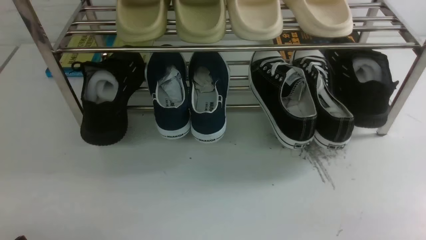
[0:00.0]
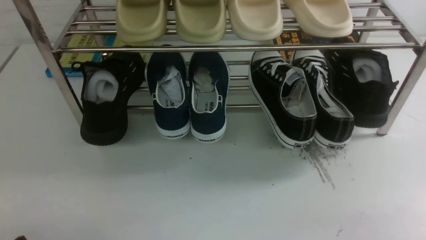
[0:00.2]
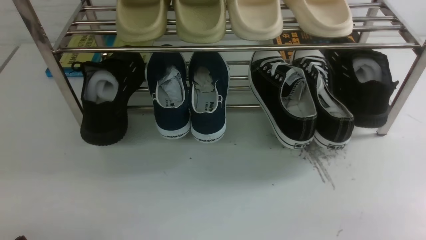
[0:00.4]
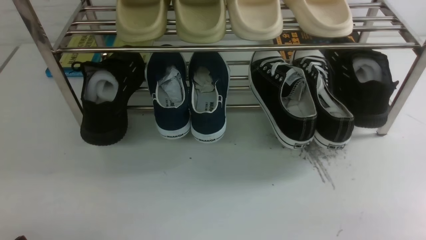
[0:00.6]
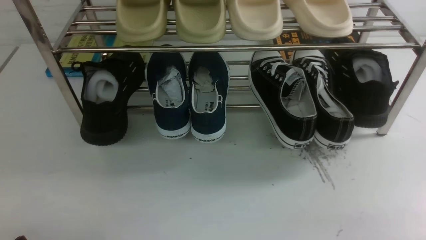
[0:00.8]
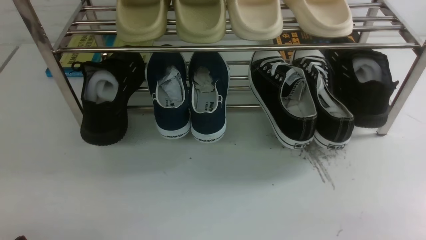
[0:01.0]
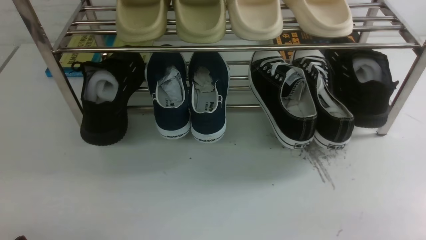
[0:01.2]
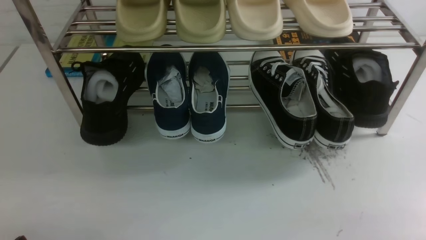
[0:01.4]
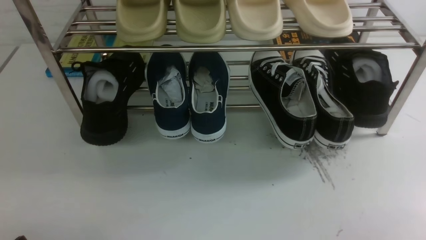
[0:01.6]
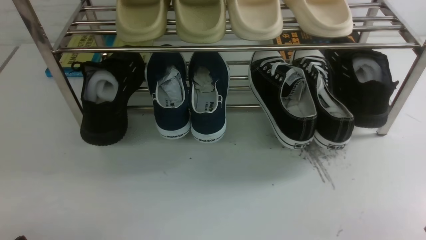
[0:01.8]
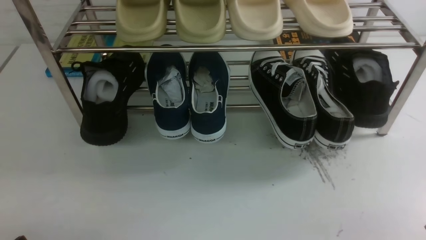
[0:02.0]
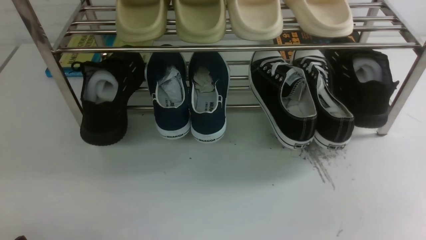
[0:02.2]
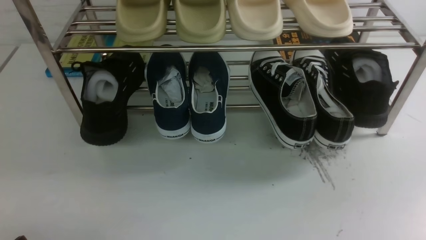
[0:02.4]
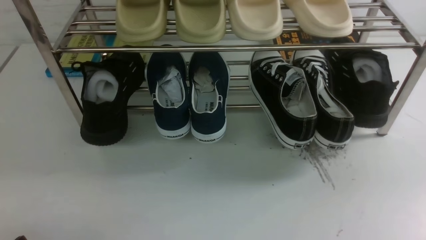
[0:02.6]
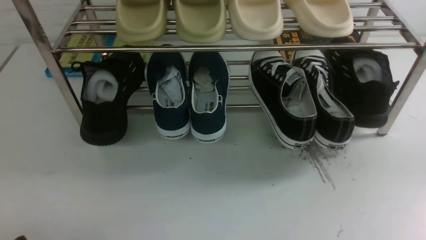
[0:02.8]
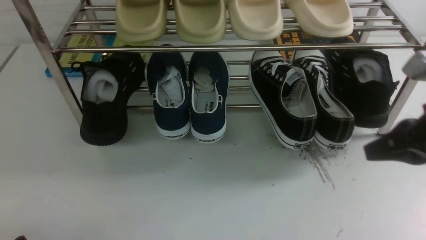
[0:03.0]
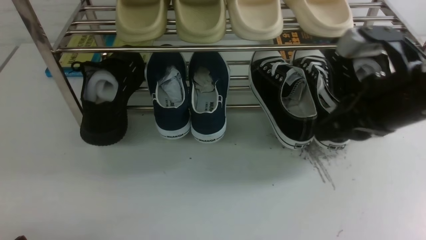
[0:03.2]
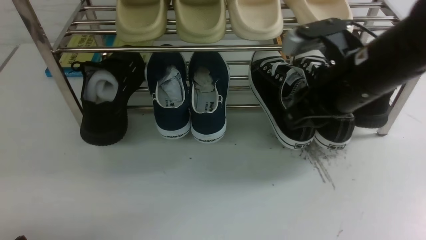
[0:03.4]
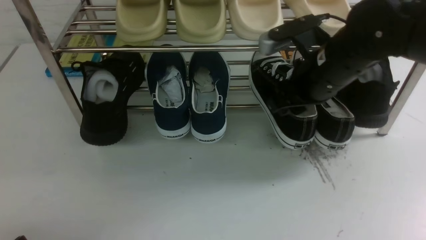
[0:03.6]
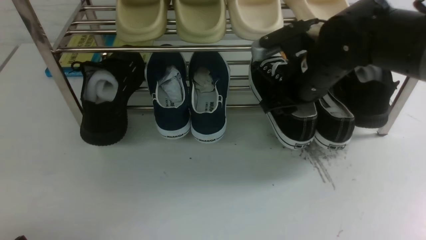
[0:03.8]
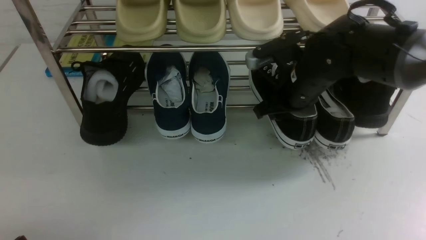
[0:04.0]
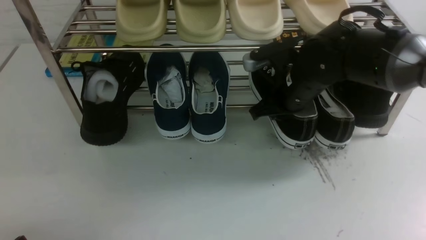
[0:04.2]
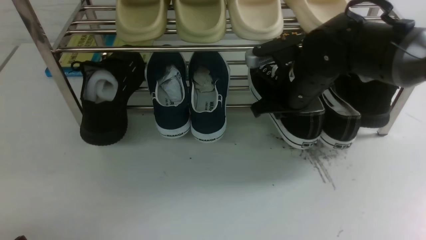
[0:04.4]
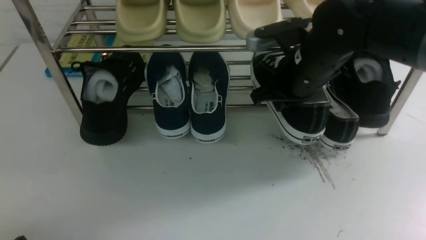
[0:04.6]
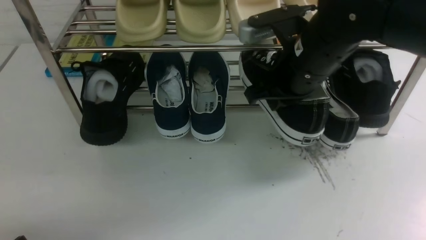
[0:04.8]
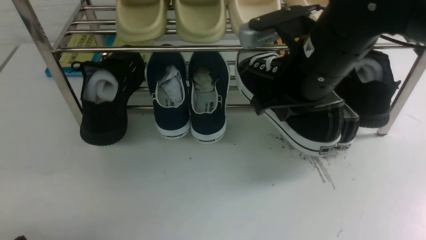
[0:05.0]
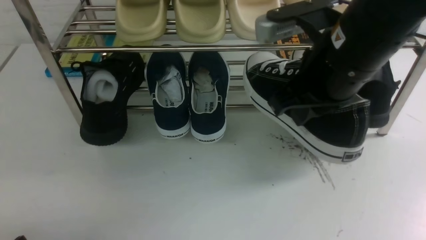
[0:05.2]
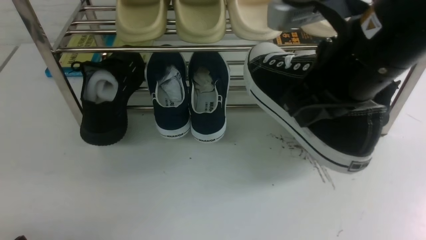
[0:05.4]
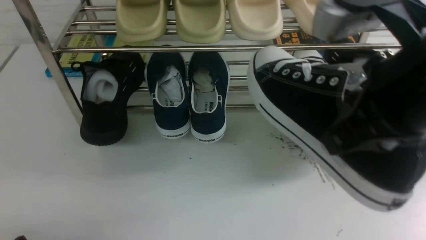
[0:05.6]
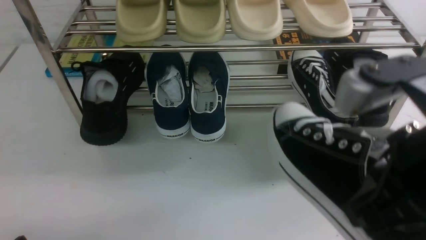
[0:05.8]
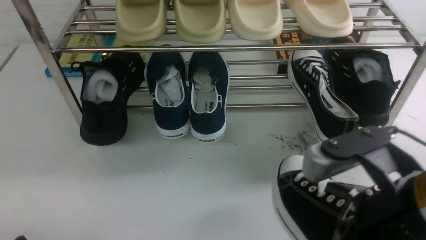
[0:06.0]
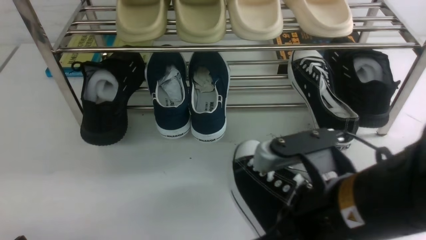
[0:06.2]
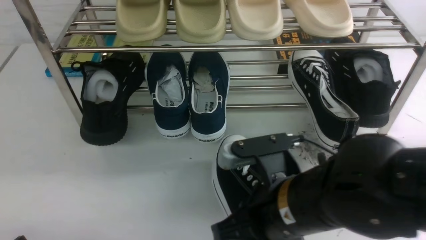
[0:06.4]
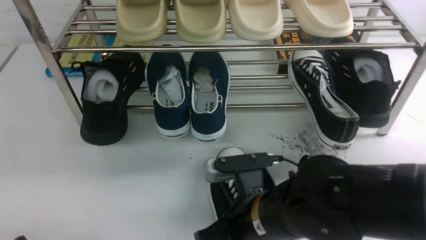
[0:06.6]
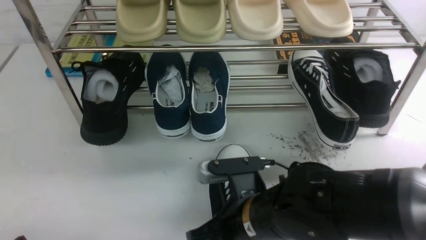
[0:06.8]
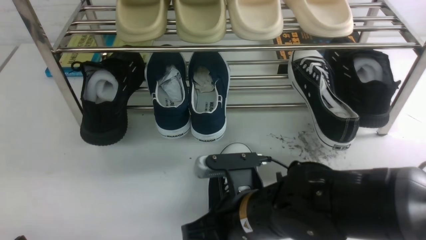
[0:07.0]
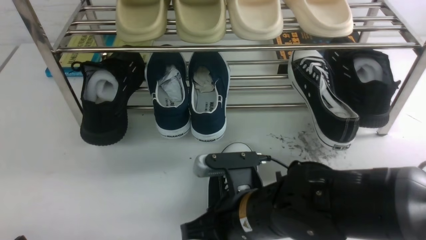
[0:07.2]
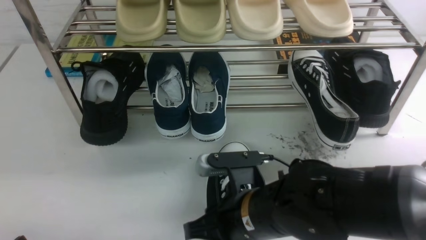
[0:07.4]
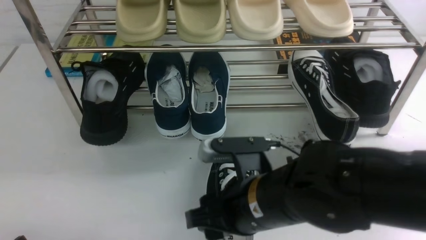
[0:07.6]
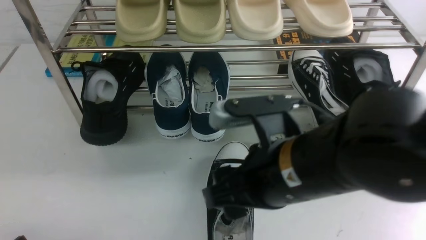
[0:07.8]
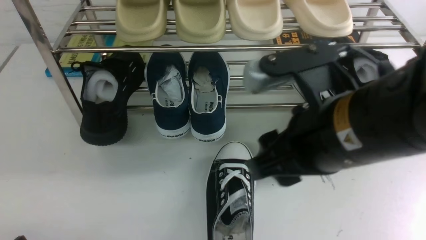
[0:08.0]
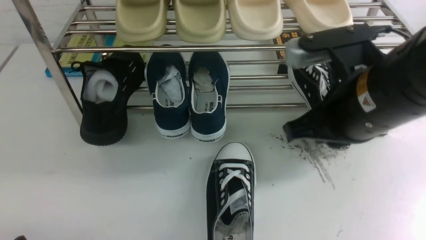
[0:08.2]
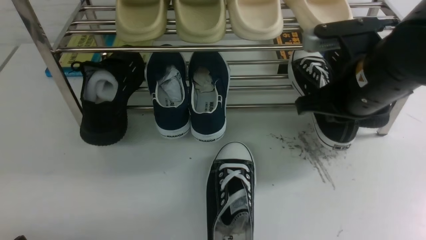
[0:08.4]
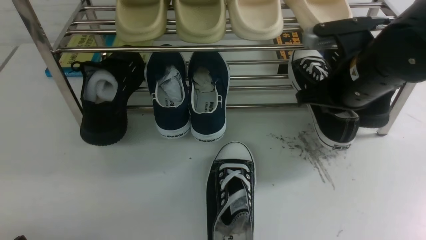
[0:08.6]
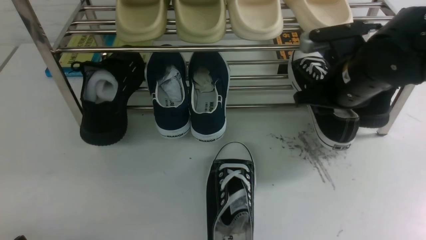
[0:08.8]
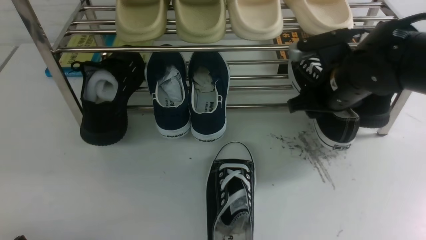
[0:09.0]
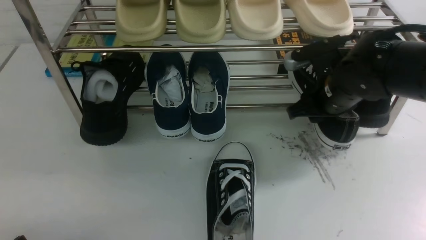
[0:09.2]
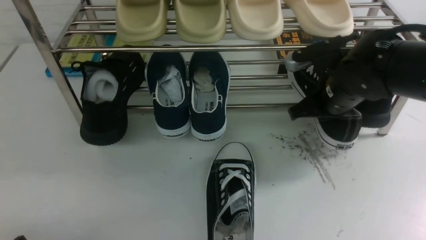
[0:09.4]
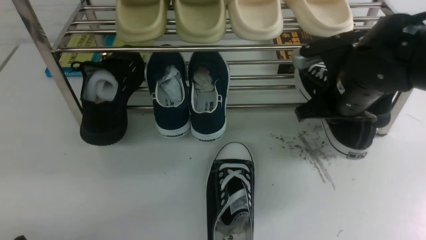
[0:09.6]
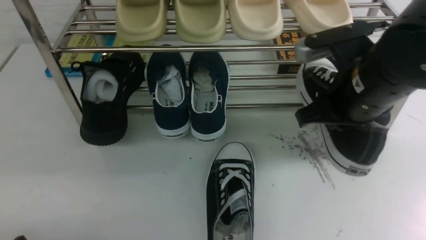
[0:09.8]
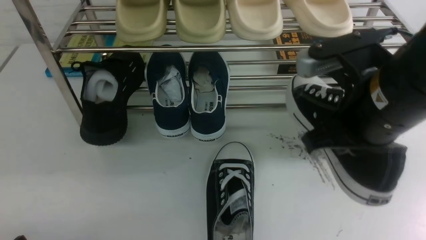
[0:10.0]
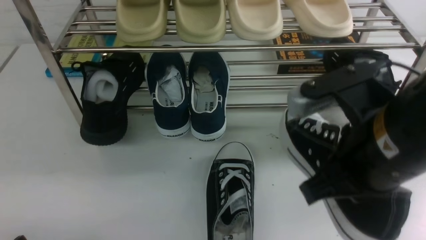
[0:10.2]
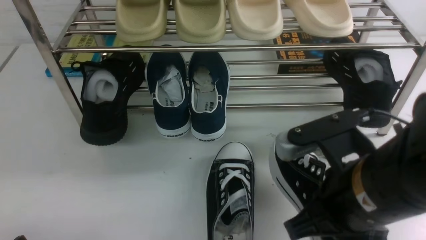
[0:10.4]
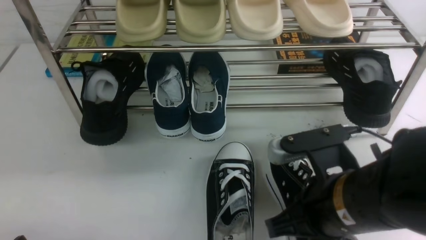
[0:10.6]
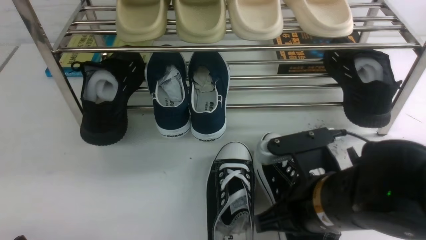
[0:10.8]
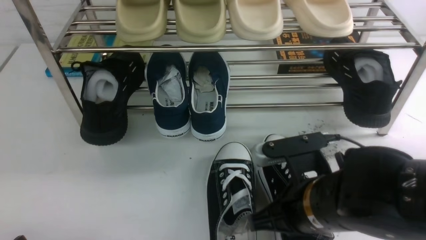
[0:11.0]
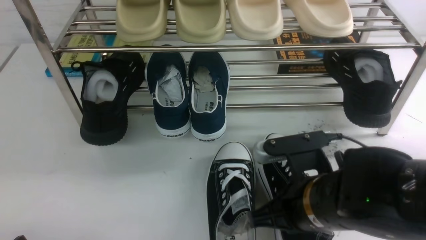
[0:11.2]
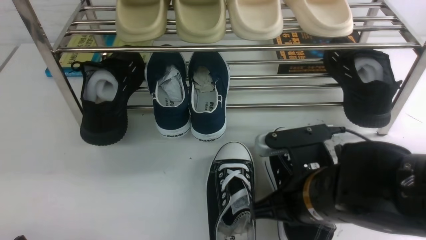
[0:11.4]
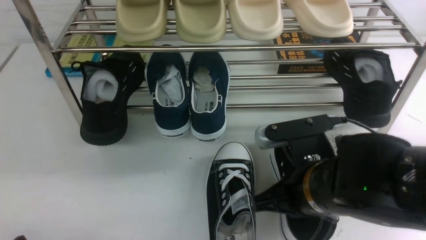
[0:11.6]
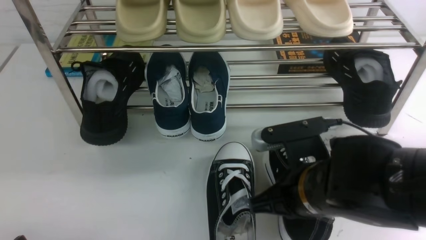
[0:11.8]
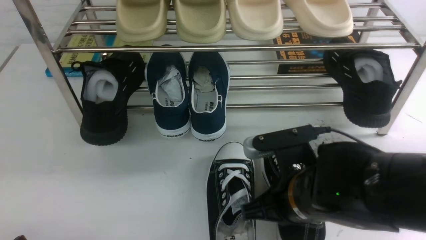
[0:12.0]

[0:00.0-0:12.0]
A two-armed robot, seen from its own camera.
Step, 0:00.0 to 0:04.6: use the right arm to clamp a shoe on the right side of the shoe rack.
Step, 0:04.8 to 0:07.6: use the right arm to take out the clamped shoe from the shoe rack and put it down.
Step, 0:07.8 to 0:09.6: use the right arm to clamp a shoe on the right side of the shoe rack.
0:01.6 to 0:03.0: The right gripper moves forward and upward, approximately 20 cm, and closes up.
0:03.0 to 0:04.4: The right gripper travels forward and to the left by approximately 20 cm, and opens and closes again.
0:04.4 to 0:06.0: The right gripper shifts approximately 25 cm backward.
0:06.0 to 0:07.6: The right gripper goes roughly 15 cm to the left, downward and forward, and opens its fingers.
0:07.6 to 0:09.0: The right gripper moves forward and to the right, approximately 20 cm, and closes, then opens again.
0:09.0 to 0:10.4: The right gripper is displaced backward by about 20 cm, and closes.
0:10.4 to 0:12.0: The right gripper is displaced downward by roughly 5 cm.

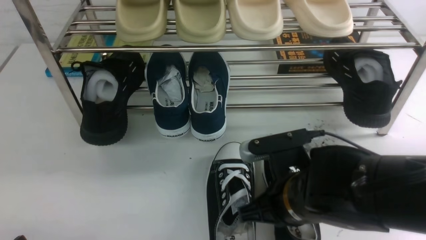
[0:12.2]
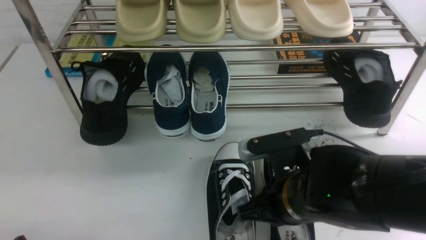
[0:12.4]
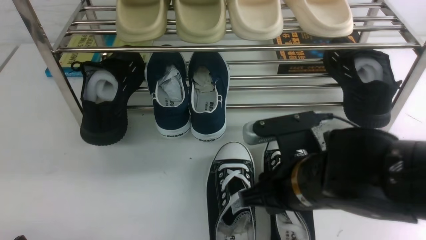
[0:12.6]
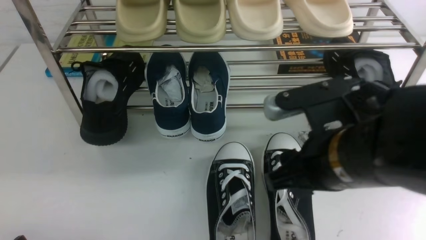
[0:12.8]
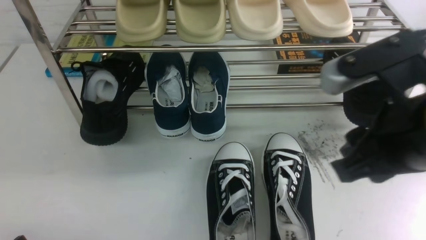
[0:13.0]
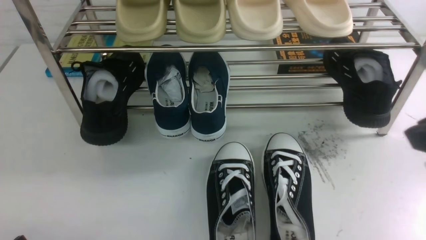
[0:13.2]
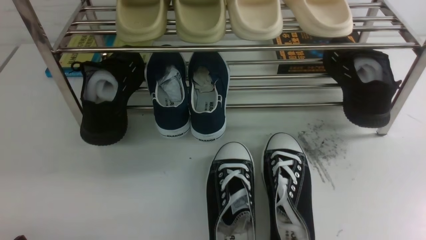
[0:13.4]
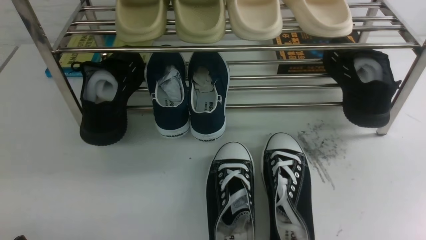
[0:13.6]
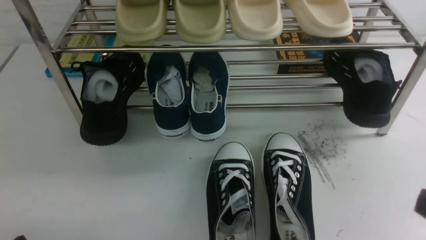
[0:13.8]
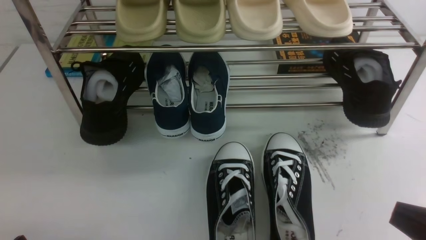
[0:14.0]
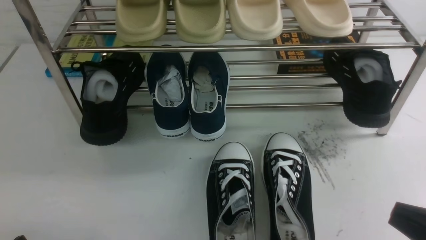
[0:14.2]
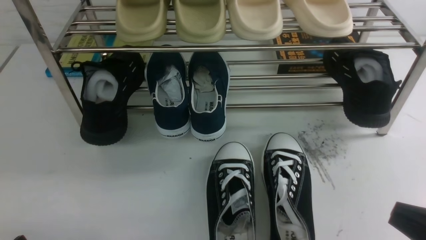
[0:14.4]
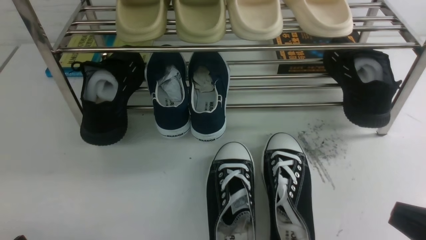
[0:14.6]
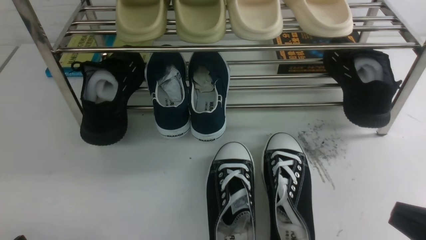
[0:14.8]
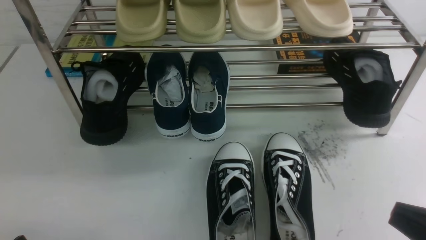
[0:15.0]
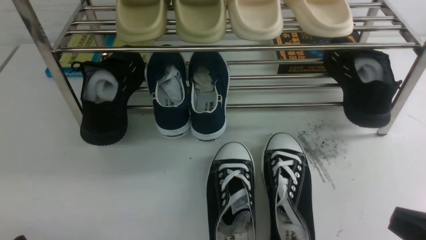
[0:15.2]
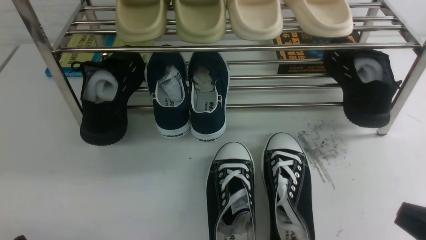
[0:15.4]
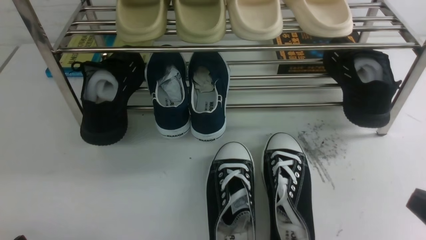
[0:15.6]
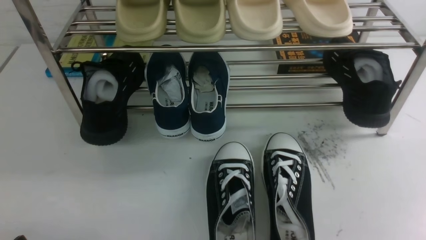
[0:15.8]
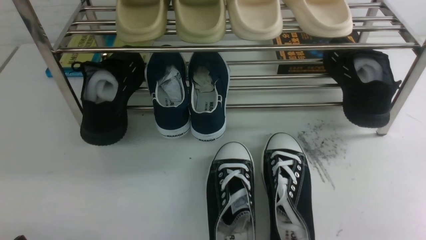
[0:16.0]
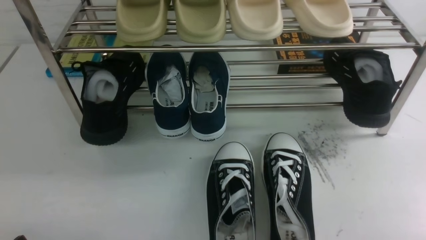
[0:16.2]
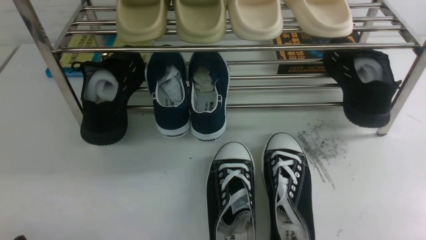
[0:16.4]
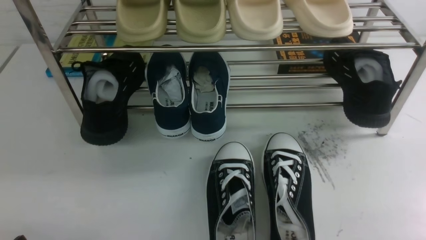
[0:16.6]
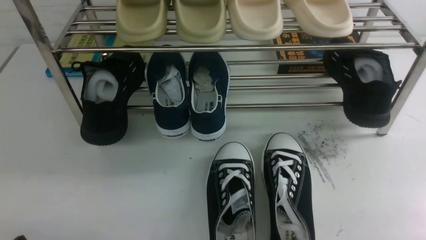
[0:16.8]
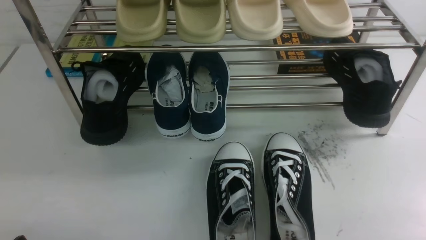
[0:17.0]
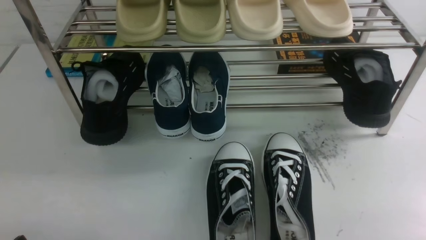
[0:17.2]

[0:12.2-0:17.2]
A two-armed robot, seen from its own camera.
0:12.2 to 0:13.8: The right gripper is displaced to the right, backward and upward by about 25 cm, and opens, then closes once more.
